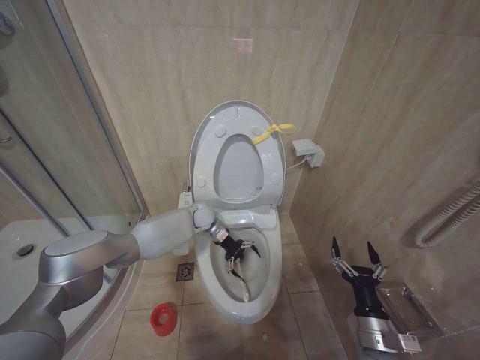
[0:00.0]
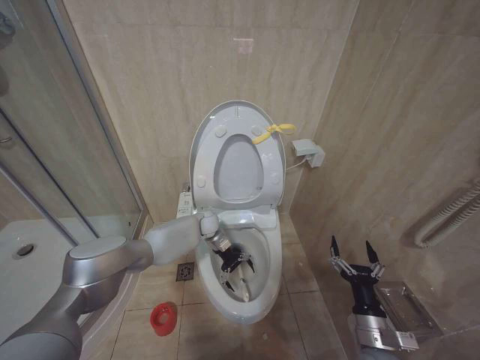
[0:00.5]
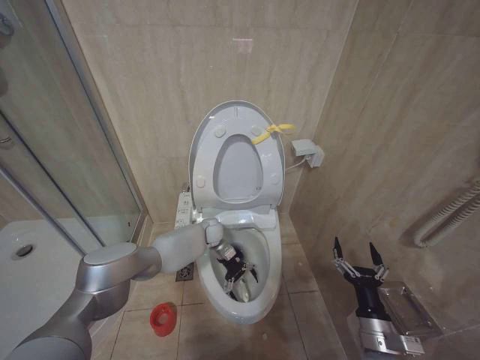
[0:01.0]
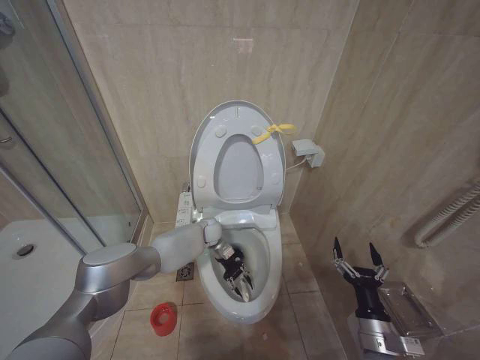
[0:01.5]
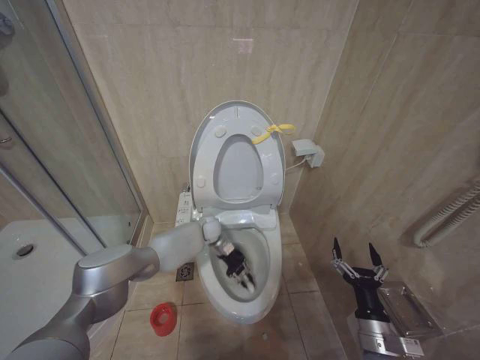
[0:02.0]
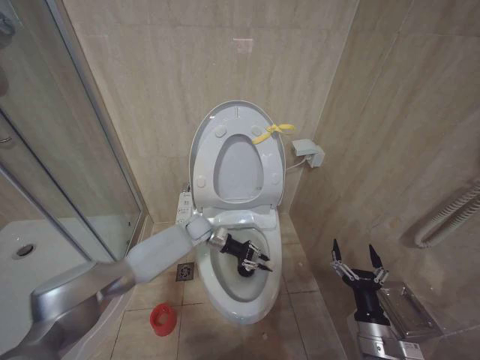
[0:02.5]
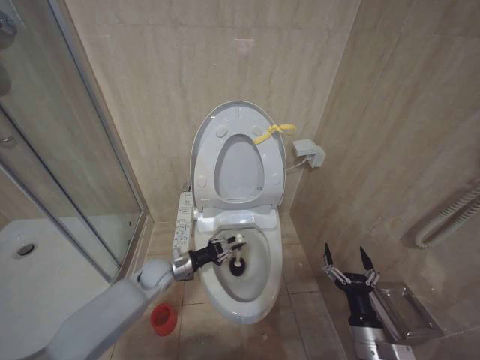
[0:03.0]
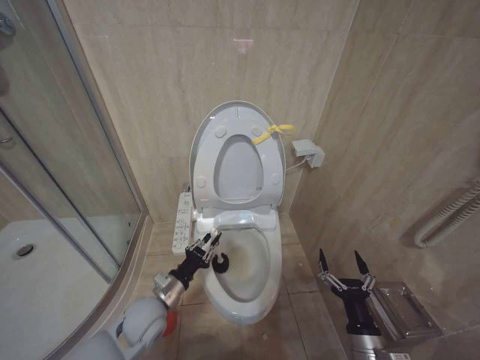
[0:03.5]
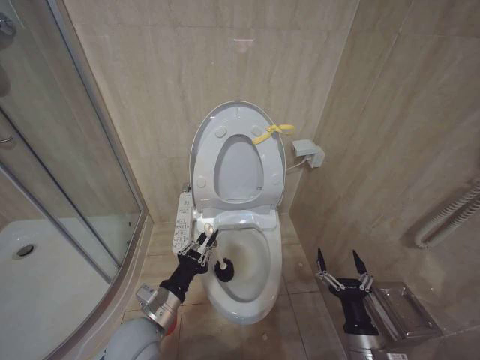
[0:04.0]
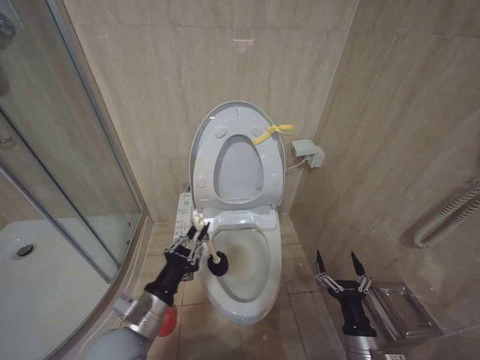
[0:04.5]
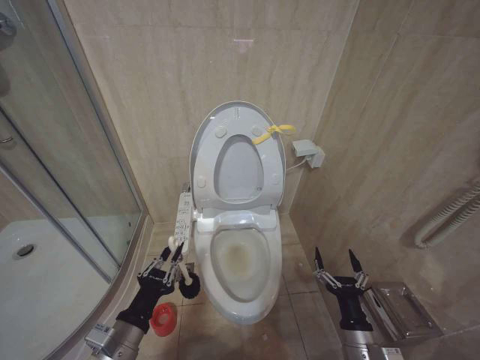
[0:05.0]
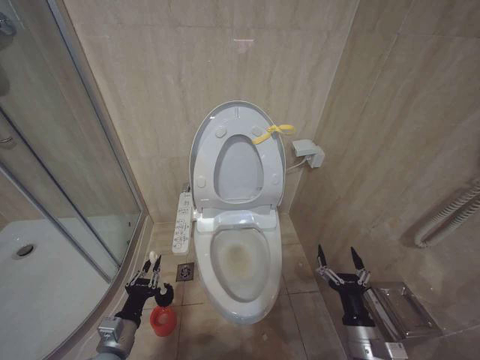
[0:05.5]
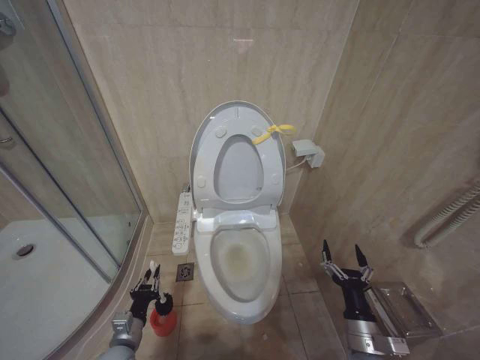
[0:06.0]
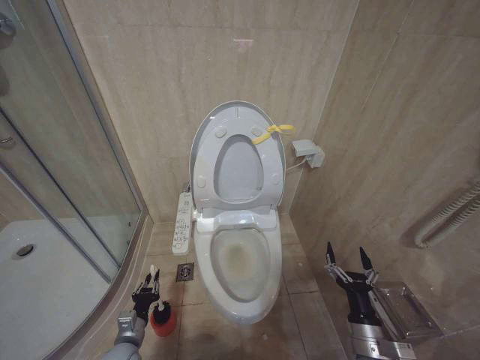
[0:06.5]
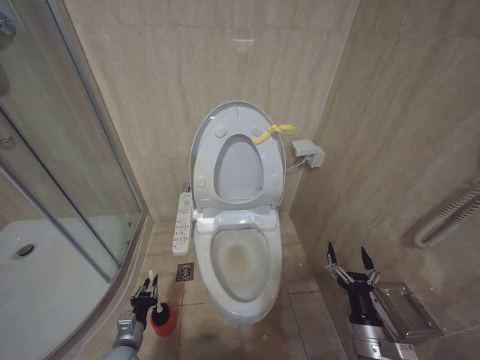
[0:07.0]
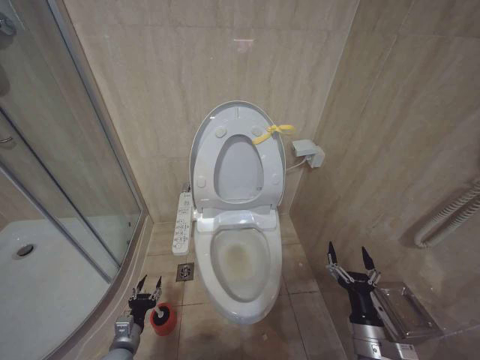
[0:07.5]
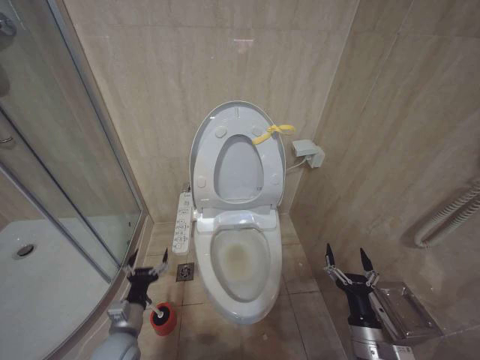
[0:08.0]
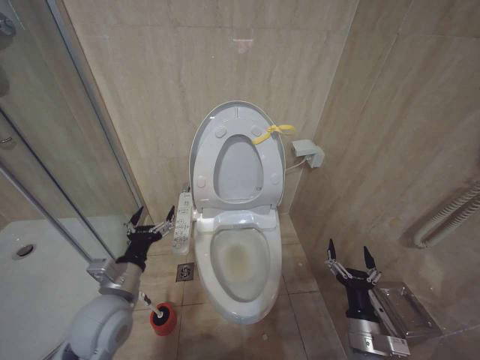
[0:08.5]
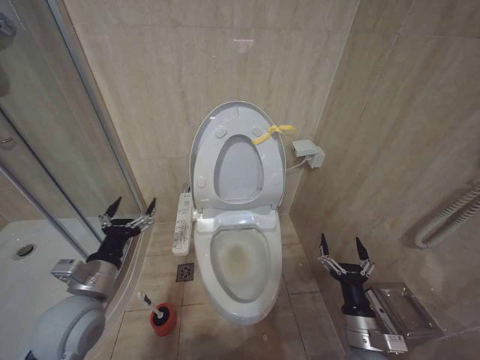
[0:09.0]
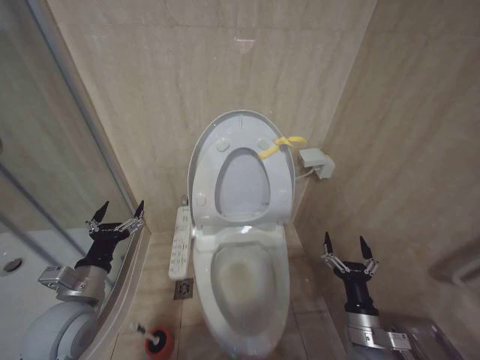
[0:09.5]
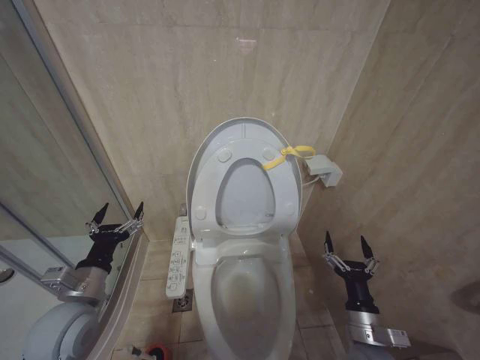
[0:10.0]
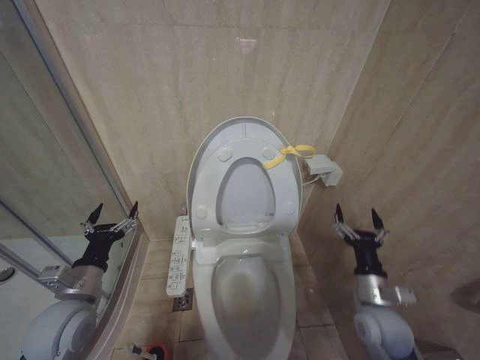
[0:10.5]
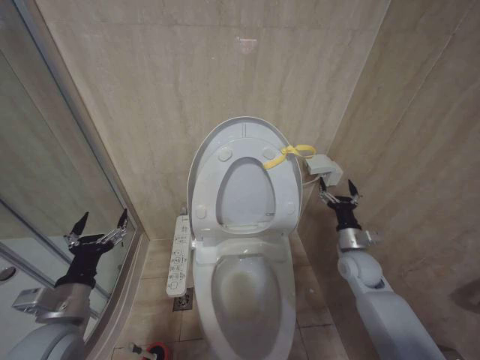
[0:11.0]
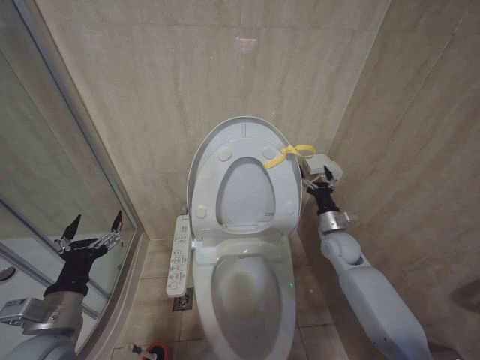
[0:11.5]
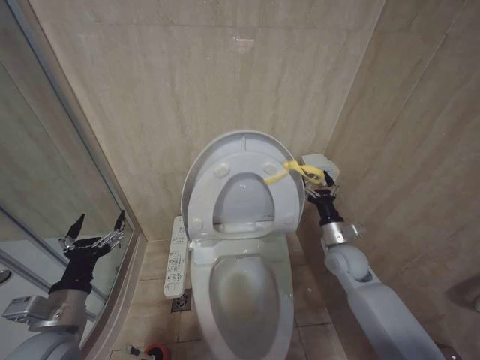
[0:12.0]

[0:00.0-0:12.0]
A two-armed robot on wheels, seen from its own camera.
Task of the whole recording: Open the toilet lid, clean the toilet bowl with a toilet brush, close the toilet lid, and flush.
0:00.0 to 0:02.0: The left gripper moves downward, approximately 5 cm, and closes.
0:02.0 to 0:04.0: The left gripper shifts approximately 35 cm backward.
0:04.0 to 0:06.0: The left gripper is displaced downward and to the left by about 15 cm.
0:06.0 to 0:08.0: The left gripper reaches some 5 cm downward, then returns, and opens its fingers.
0:08.0 to 0:10.0: The left gripper moves upward, some 20 cm.
0:10.0 to 0:12.0: The right gripper shifts approximately 20 cm forward.

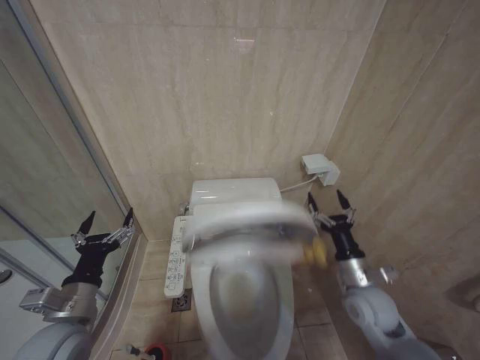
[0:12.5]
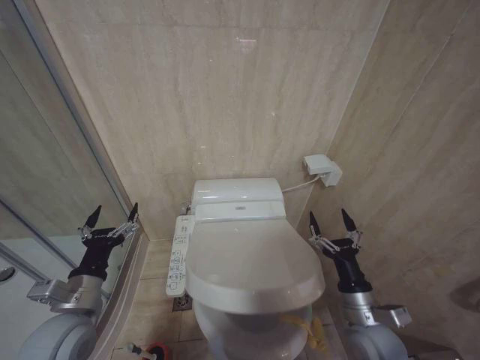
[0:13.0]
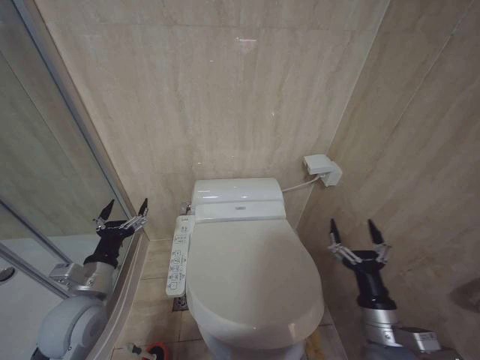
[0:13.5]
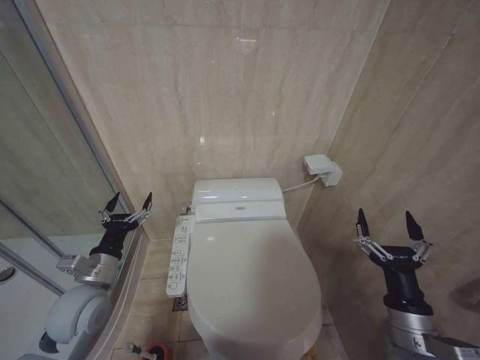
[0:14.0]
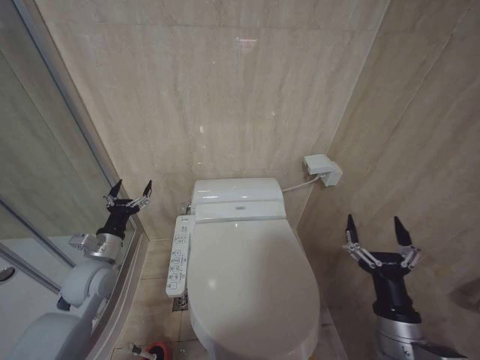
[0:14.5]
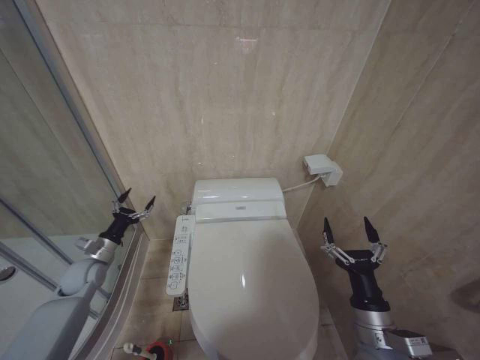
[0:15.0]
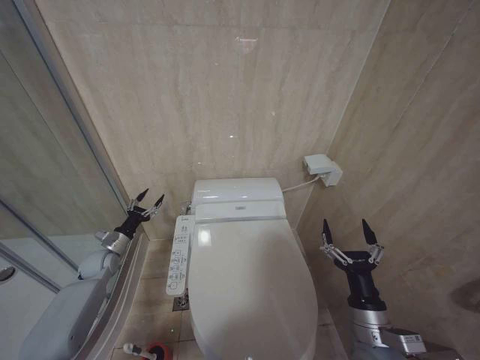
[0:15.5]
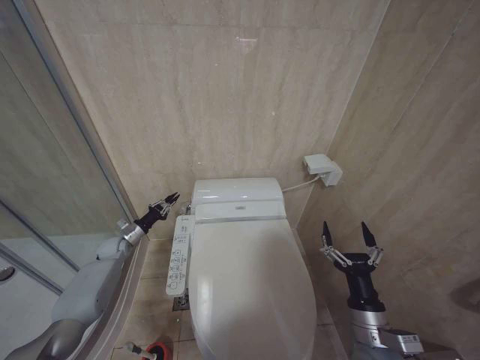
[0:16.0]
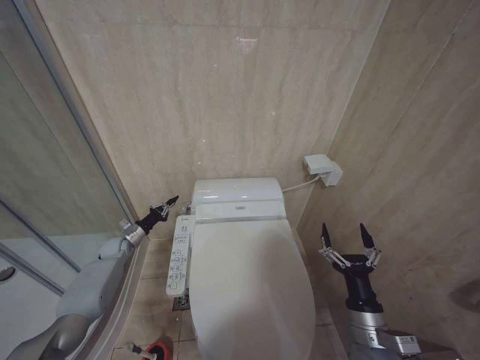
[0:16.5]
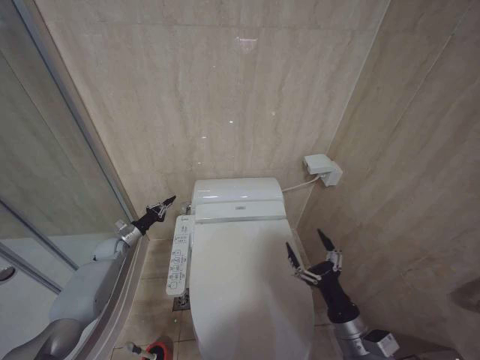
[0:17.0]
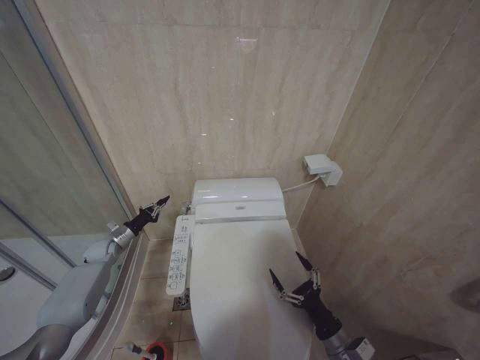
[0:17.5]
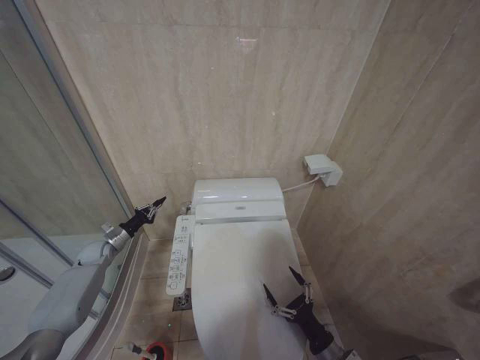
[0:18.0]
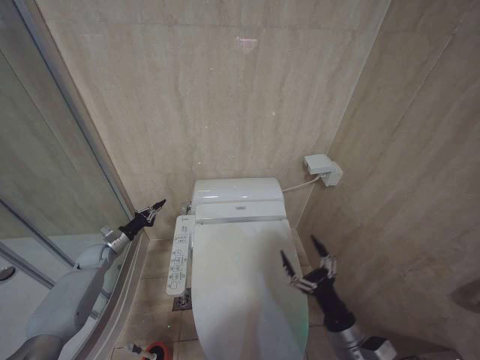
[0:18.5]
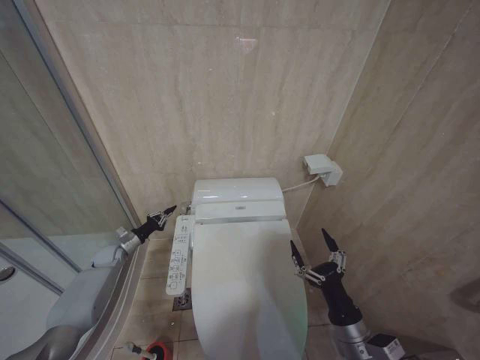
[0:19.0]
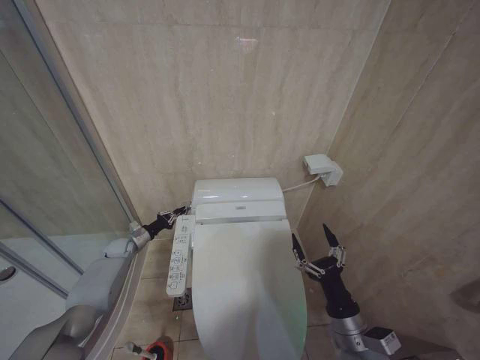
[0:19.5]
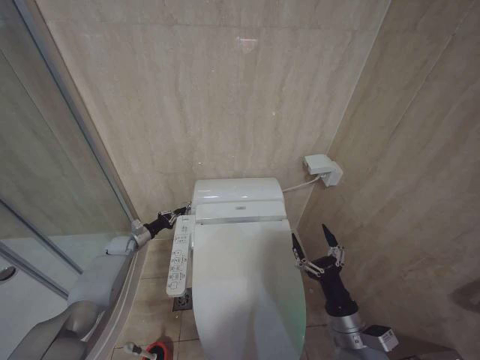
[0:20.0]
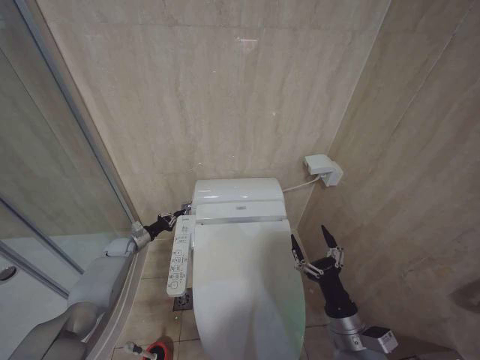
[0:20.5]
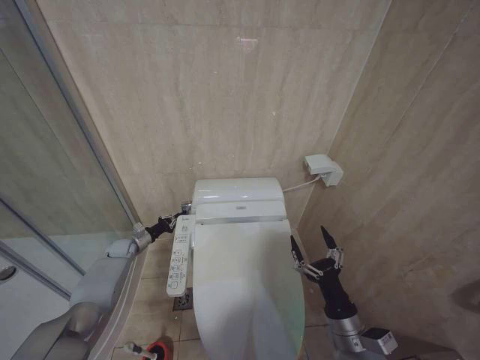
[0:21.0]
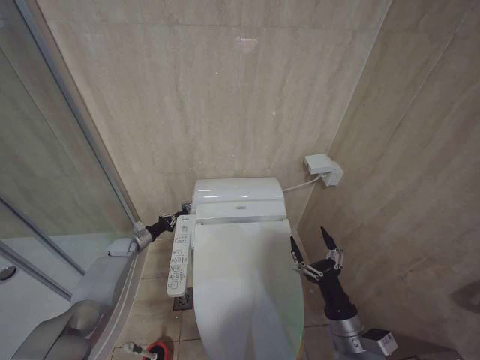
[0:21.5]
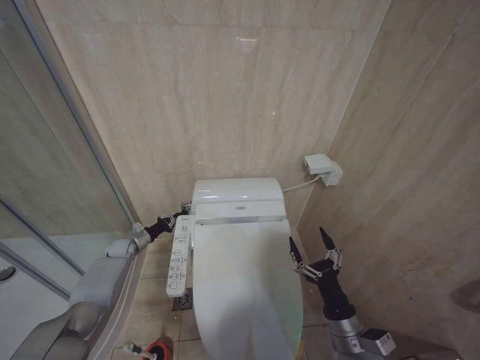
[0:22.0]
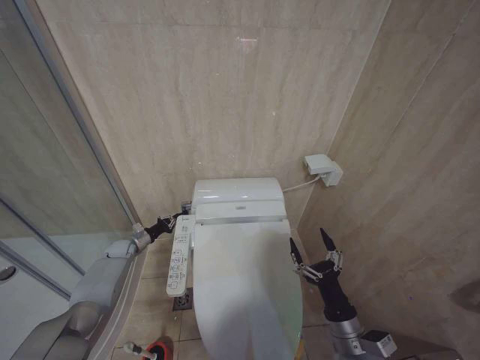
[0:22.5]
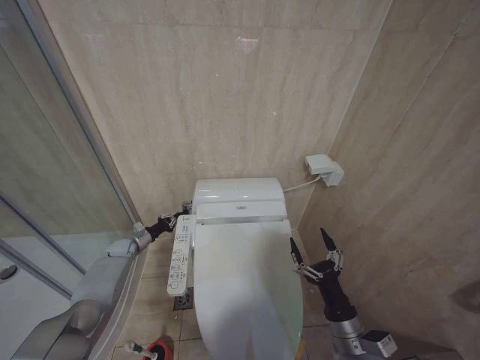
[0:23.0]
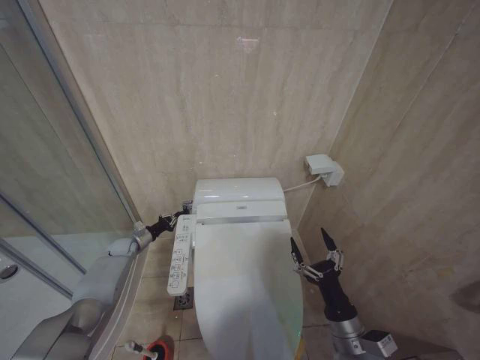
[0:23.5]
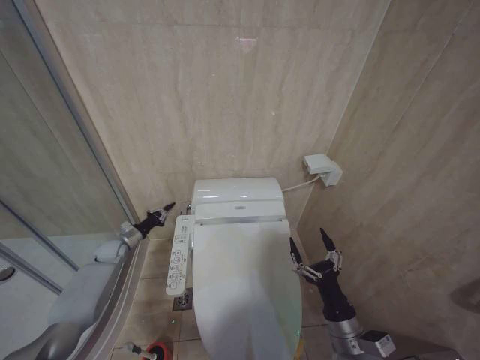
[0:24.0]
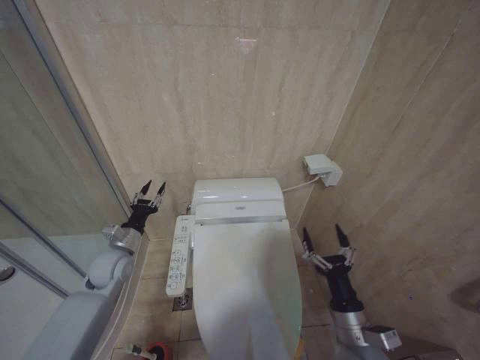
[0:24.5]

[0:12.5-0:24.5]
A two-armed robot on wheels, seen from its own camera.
Task of the whole recording: Open the toilet lid, clean the toilet bowl with a toilet brush, close the toilet lid, and flush.
0:12.5 to 0:14.5: The right gripper moves backward, some 15 cm. Meanwhile the left gripper goes about 15 cm forward.
0:14.5 to 0:16.5: The right gripper is displaced downward by roughly 5 cm, while the left gripper shifts some 20 cm forward and downward, and closes up.
0:16.5 to 0:18.5: The left gripper changes place by roughly 5 cm.
0:18.5 to 0:20.5: The left gripper ends up approximately 5 cm from where it was.
0:20.5 to 0:22.5: Both grippers stay about where they are.
0:22.5 to 0:24.5: The left gripper travels backward, upward and to the right by some 20 cm.

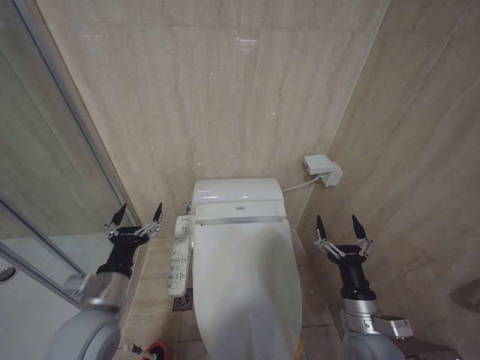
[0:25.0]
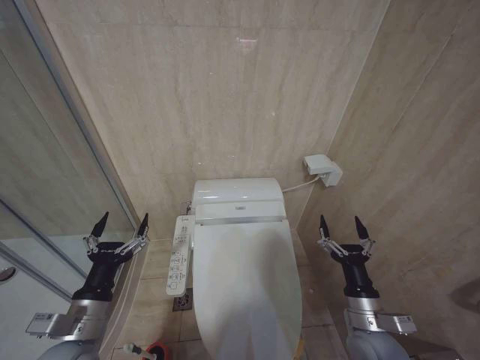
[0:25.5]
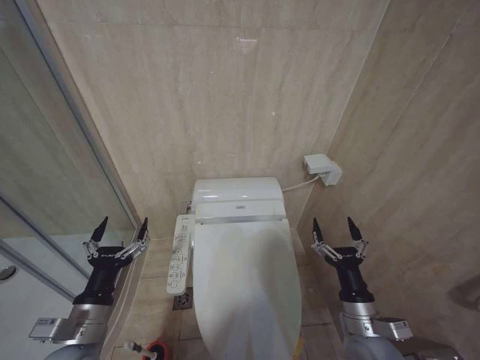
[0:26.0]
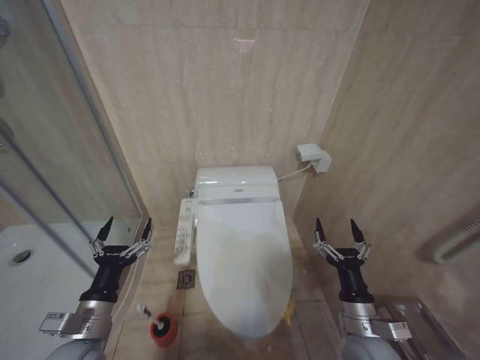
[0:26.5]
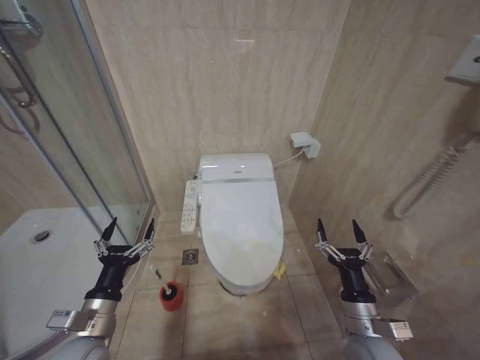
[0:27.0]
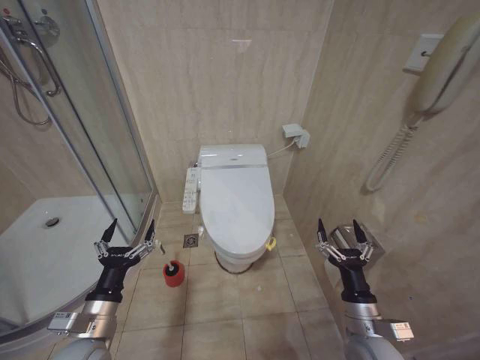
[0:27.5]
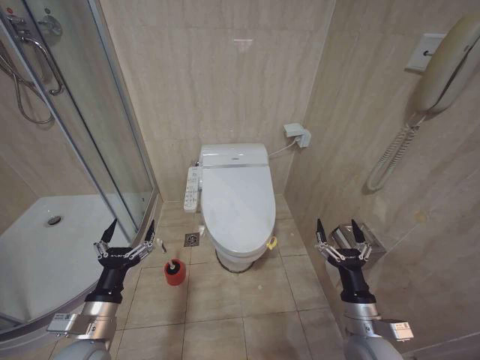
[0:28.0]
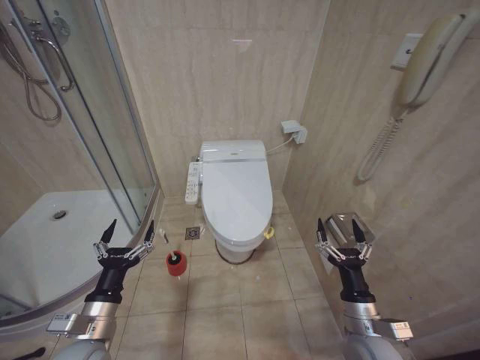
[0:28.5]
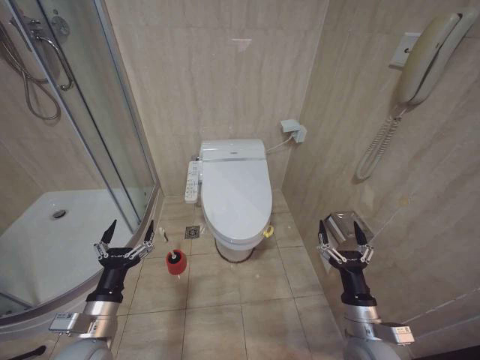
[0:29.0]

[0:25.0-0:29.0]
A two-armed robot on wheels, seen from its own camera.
Task of the whole recording: Open the toilet lid, clean the toilet bowl with a toilet brush, close the toilet lid, and flush.
0:25.0 to 0:27.0: The left gripper ends up approximately 5 cm from where it was.
